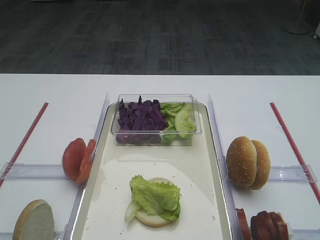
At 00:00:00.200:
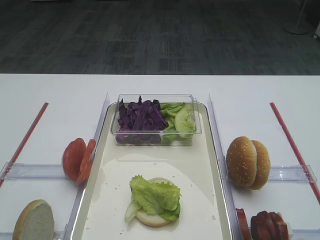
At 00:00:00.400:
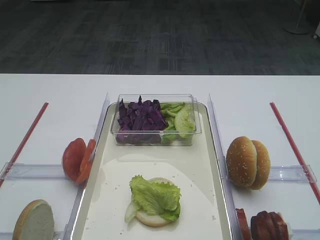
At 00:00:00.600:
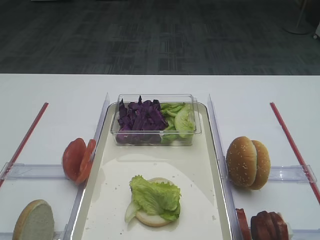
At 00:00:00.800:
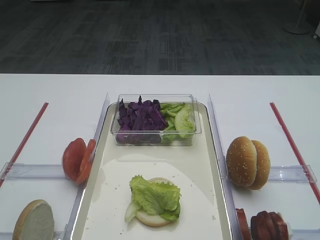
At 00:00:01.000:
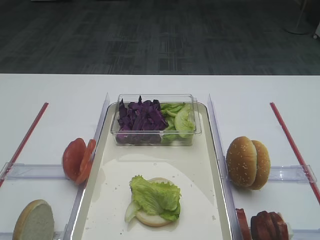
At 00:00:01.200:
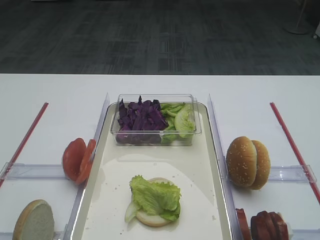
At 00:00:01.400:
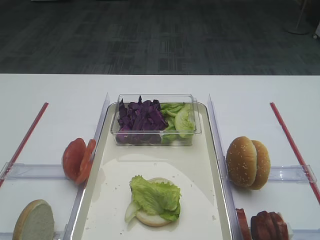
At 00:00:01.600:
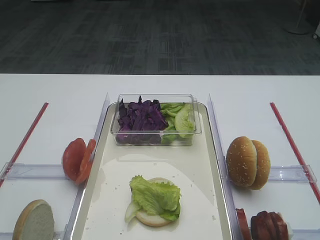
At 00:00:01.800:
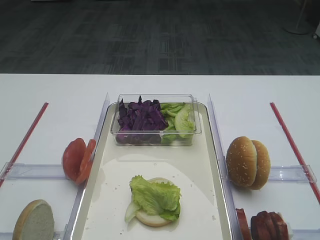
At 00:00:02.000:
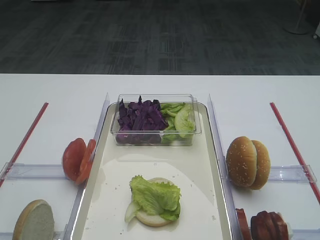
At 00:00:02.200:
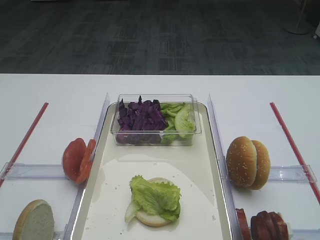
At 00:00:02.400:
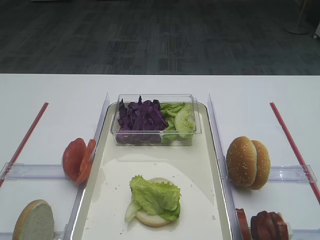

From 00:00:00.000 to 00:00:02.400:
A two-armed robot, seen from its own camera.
From 00:00:00.000 to 00:00:02.400: Both grippers stay put.
